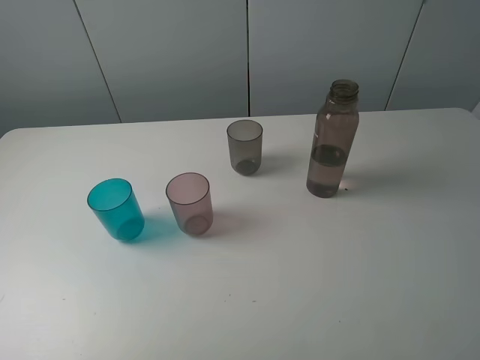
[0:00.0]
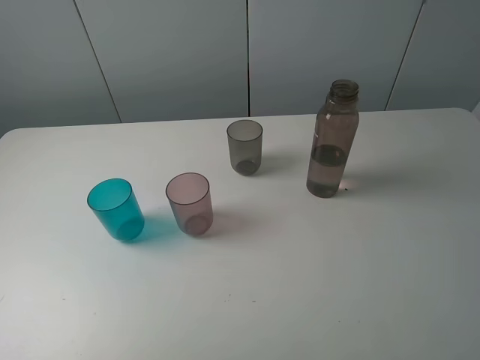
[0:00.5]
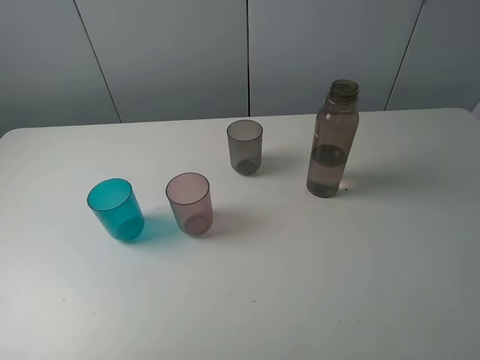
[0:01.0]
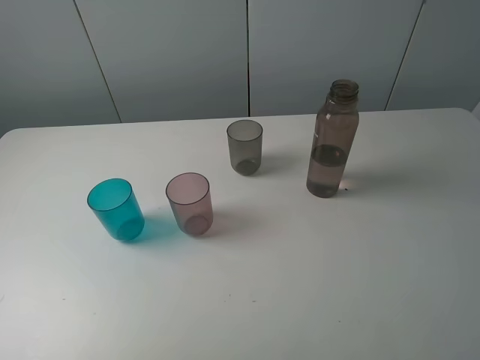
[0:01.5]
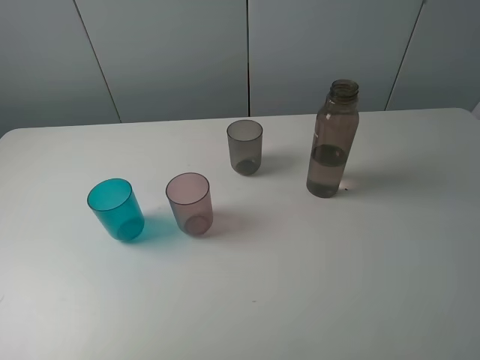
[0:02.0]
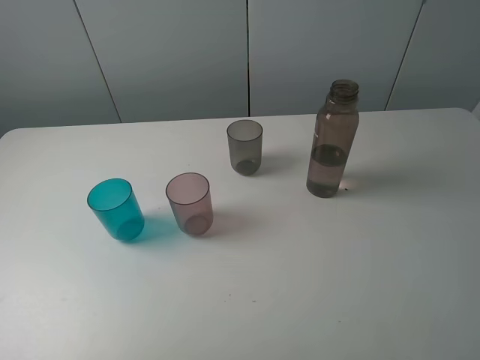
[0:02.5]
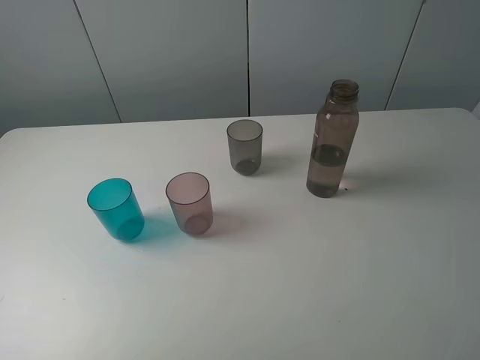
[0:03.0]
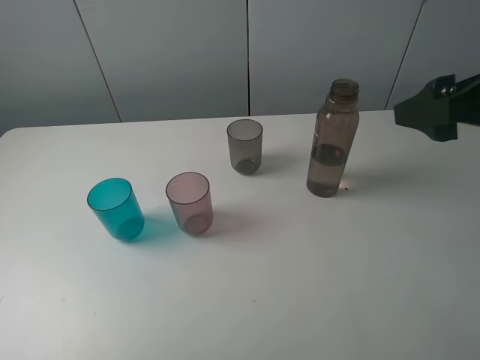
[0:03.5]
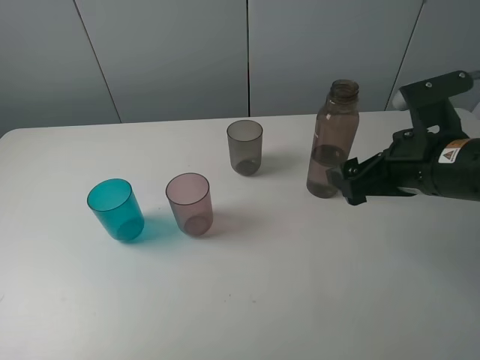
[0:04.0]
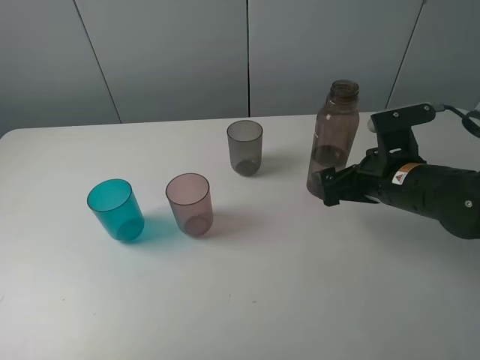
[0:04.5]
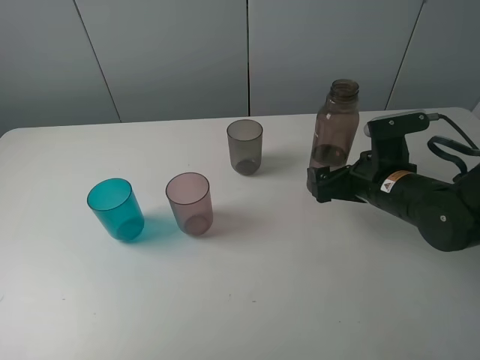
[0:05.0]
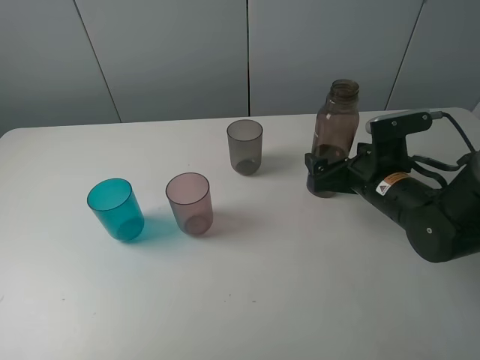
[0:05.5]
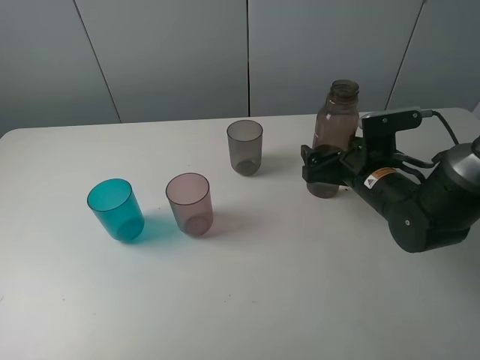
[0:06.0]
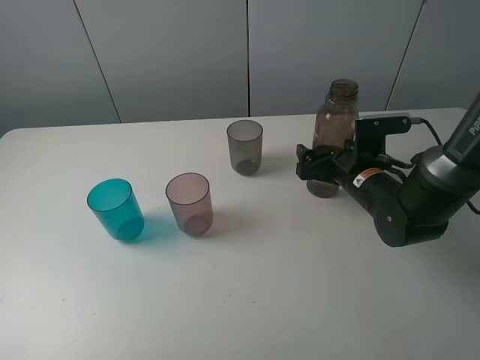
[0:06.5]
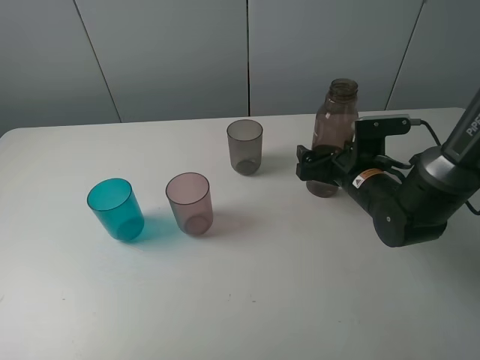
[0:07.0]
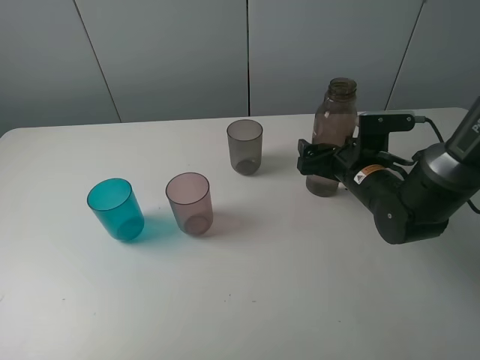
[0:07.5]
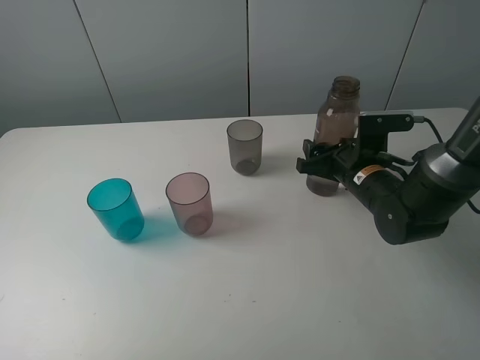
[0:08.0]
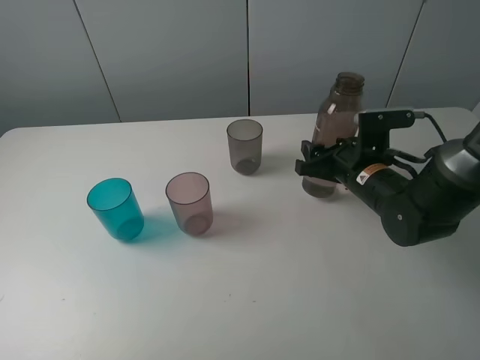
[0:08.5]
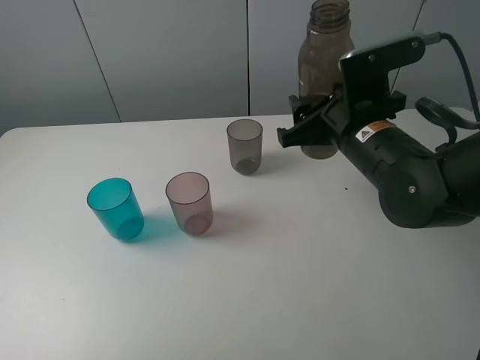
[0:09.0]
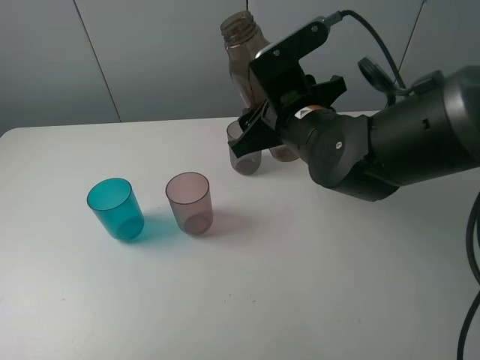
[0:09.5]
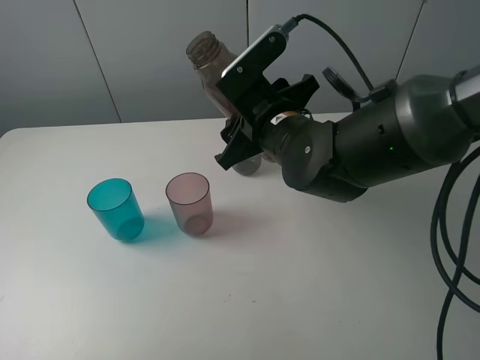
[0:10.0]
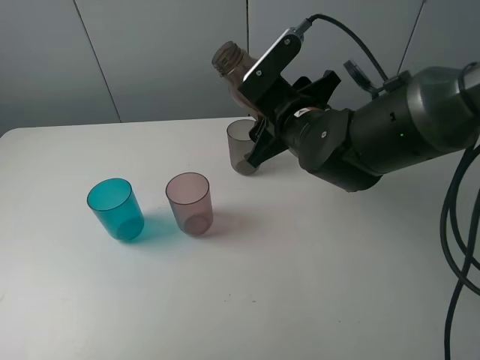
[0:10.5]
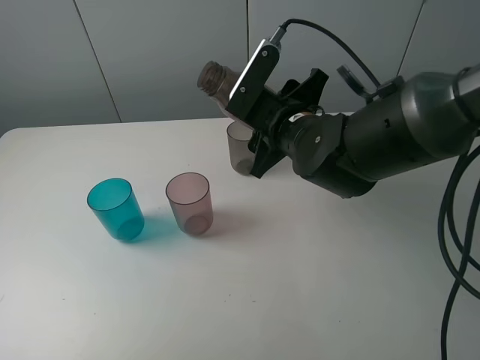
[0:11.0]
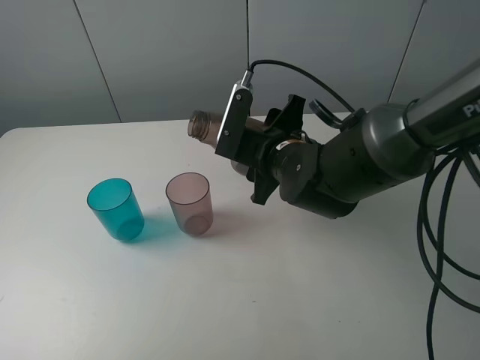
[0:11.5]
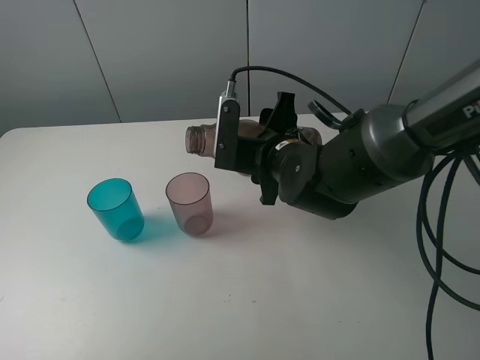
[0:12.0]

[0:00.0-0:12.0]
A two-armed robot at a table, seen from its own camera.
Task of the whole recording: pick up the bottle filled with water and pour water into the middle cup of the three cups.
Step, 0:00.0 to 0:07.5: Grasp the brown bottle with the right gripper.
0:00.0 to 0:02.0: Neither gripper changes place.
0:02.0 to 0:04.0: The right gripper is displaced forward, downward and to the left by about 25 cm.
0:04.0 to 0:06.0: The right gripper is displaced downward and forward by some 10 cm.
0:06.0 to 0:08.0: The right gripper closes.
0:08.0 to 0:10.0: The right gripper heads to the left and upward, covering about 15 cm.

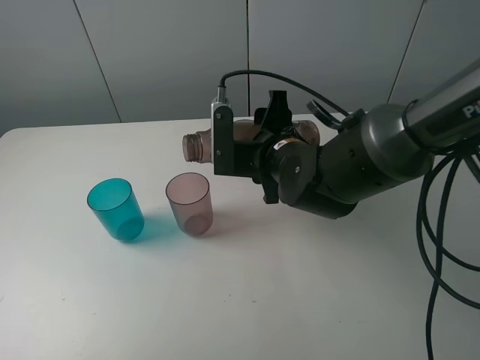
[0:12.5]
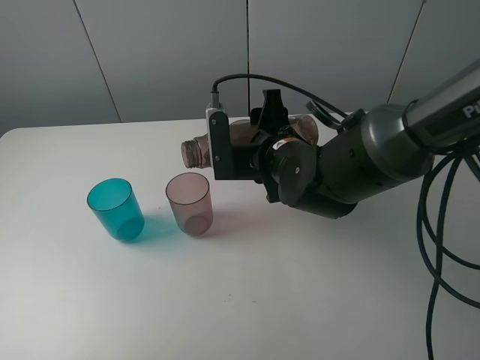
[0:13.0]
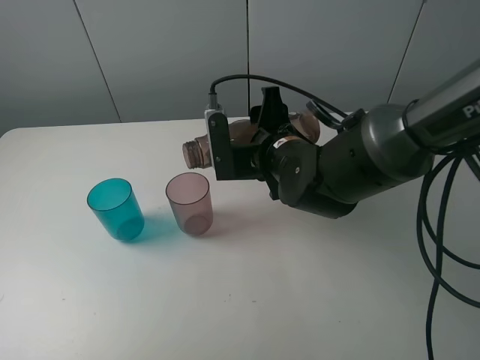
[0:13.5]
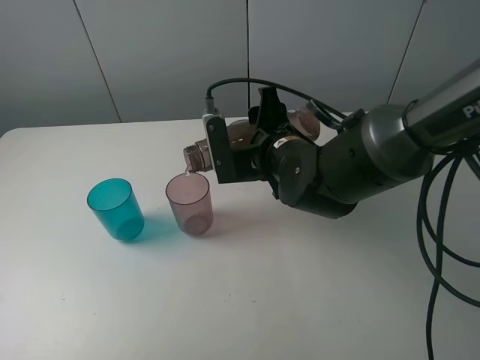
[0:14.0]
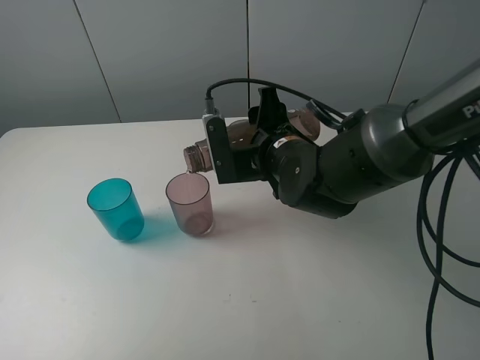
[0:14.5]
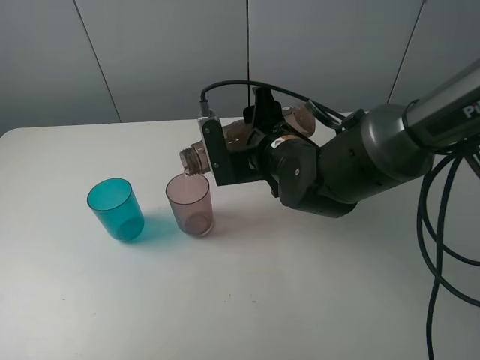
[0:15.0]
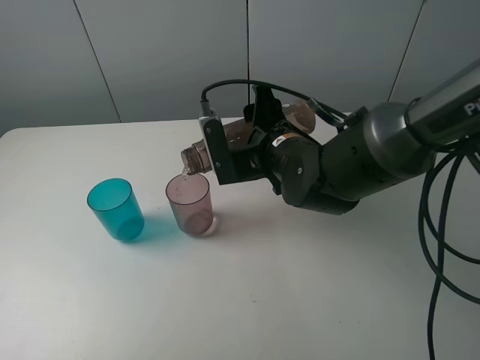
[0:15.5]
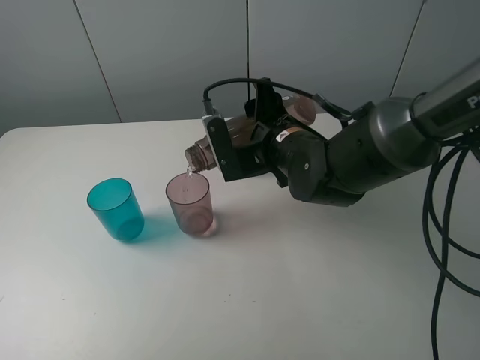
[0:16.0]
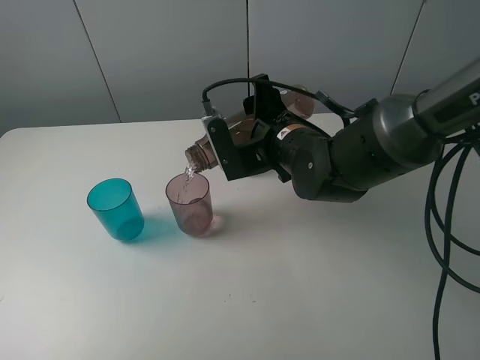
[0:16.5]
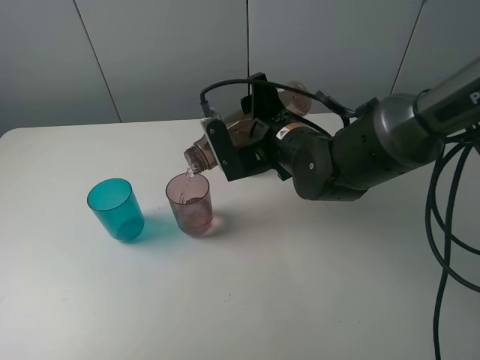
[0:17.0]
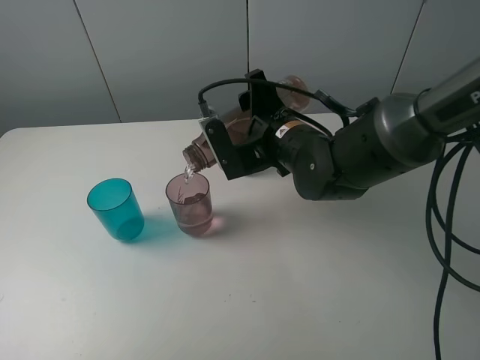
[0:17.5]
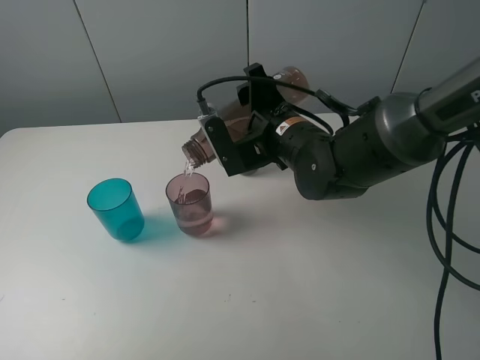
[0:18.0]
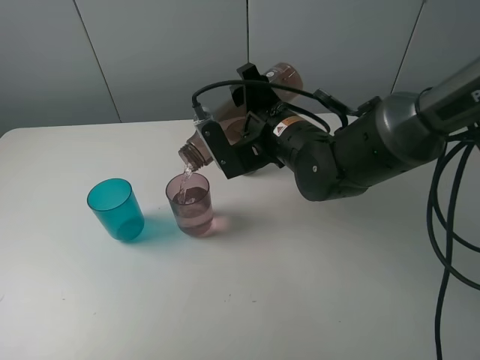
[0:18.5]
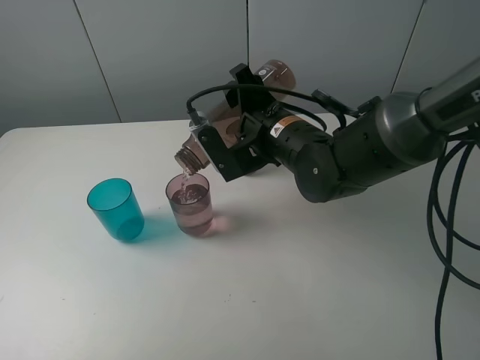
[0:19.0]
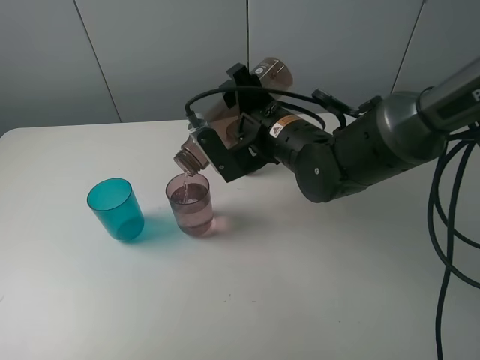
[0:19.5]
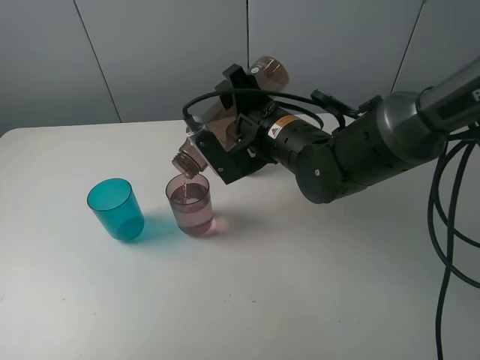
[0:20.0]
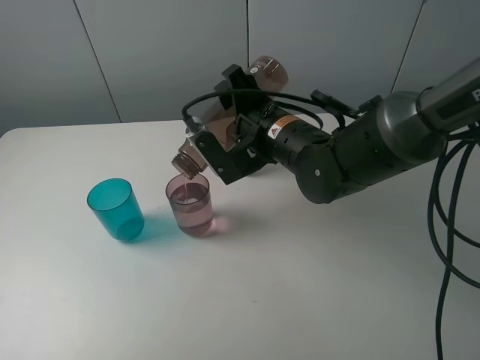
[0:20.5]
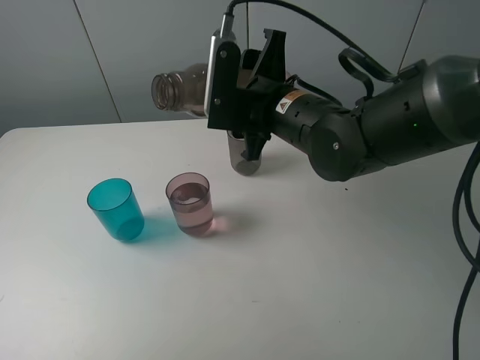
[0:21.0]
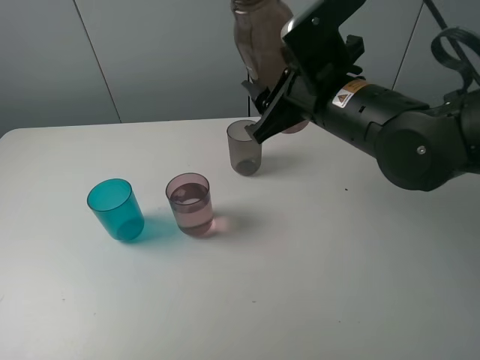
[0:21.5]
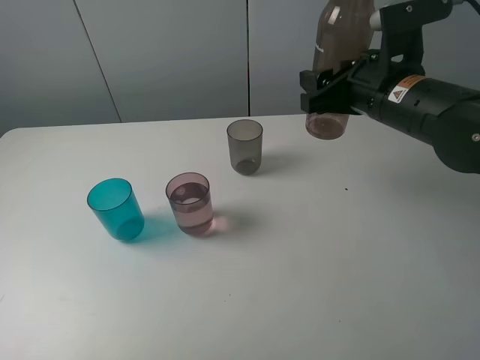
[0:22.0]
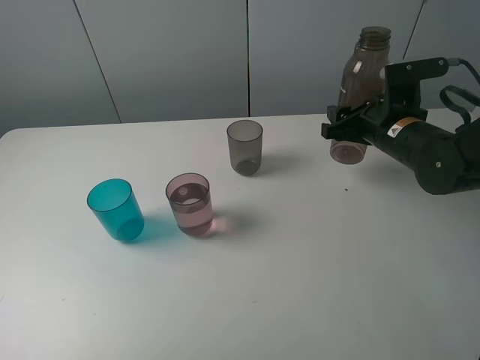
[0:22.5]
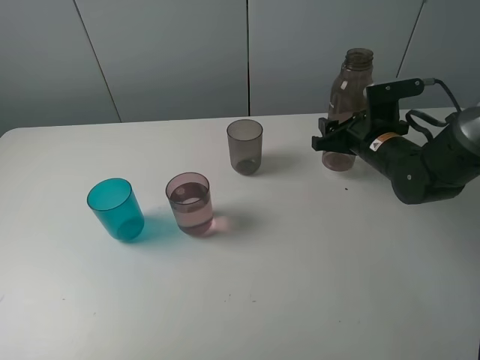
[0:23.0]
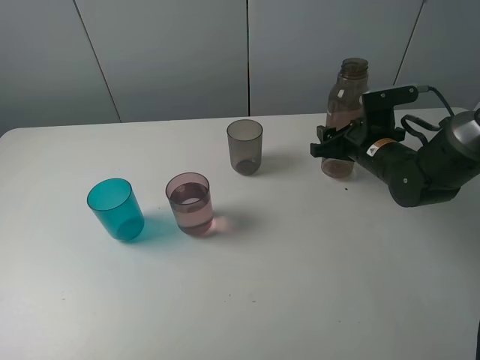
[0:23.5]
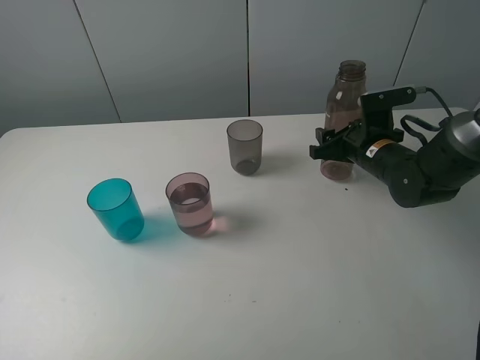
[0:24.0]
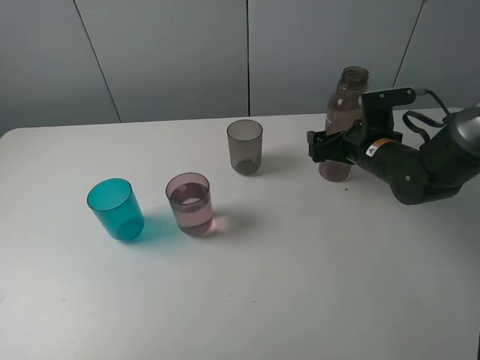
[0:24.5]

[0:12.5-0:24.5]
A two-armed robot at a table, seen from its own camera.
Task of the whole recording: pick up the bottle filled with water and pour water into the middle cup of the three cups.
Step, 0:12.5 to 0:15.0: Pour water from transparent bottle to red cup with the right gripper.
0:12.5 to 0:14.5: There are only small adjustments of the grippers.
0:14.5 to 0:16.5: The grippers move only a little.
0:16.5 to 0:20.5: The grippers move only a little.
0:20.5 to 0:22.5: The right gripper heads to the right, covering approximately 15 cm.
0:22.5 to 0:24.5: The right gripper opens its fingers.

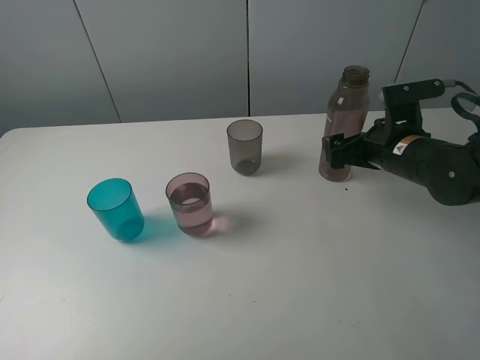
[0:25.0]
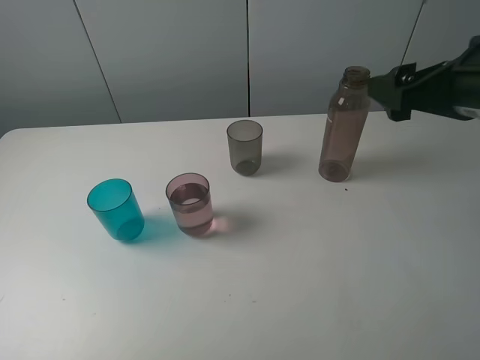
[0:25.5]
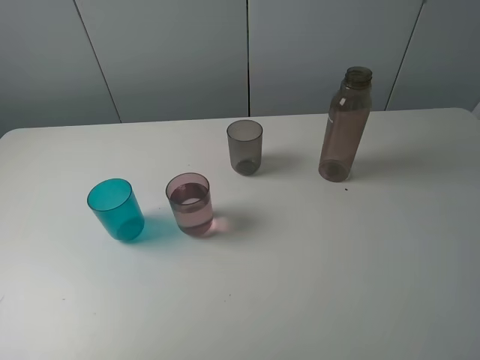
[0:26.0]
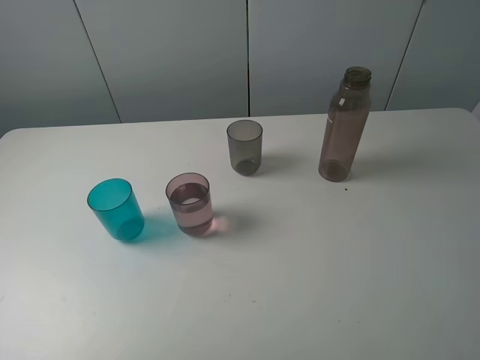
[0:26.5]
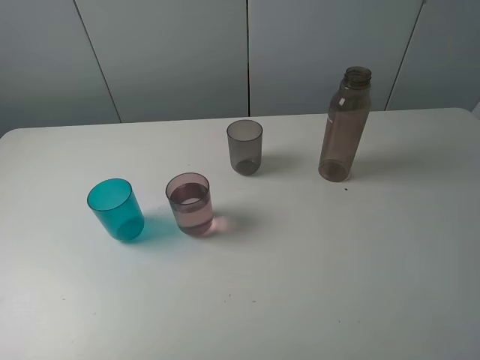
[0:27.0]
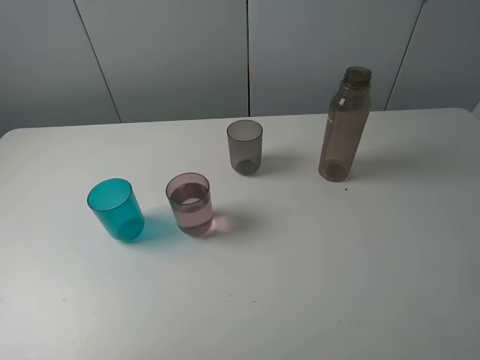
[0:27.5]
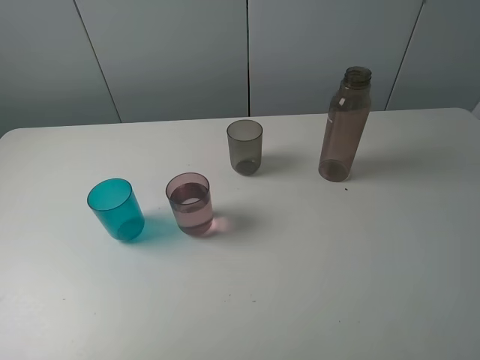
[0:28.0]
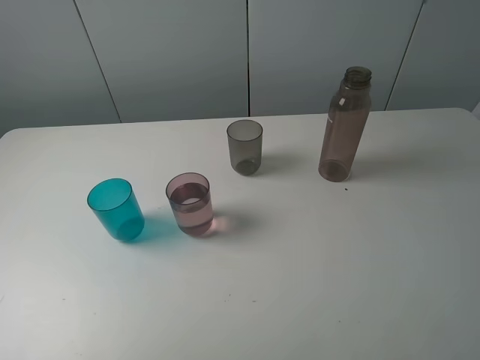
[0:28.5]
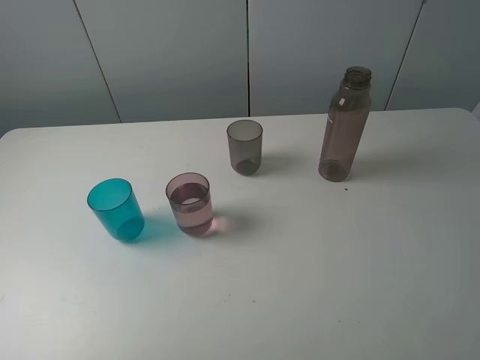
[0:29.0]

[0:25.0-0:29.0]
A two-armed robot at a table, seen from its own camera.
Task of the whole recording: pick up the bottle filled with water and pour water into the middle cup of the three cups.
0:25.0 to 0:27.0: The right gripper travels backward and upward by about 35 cm.
